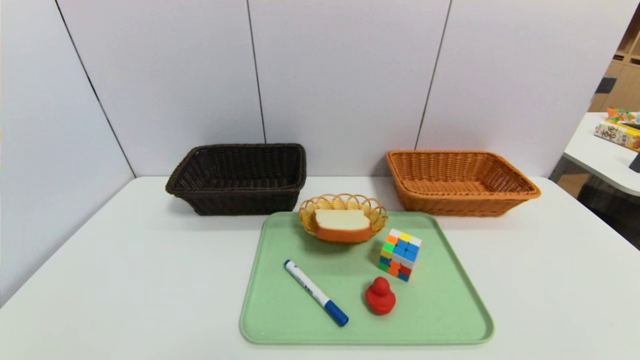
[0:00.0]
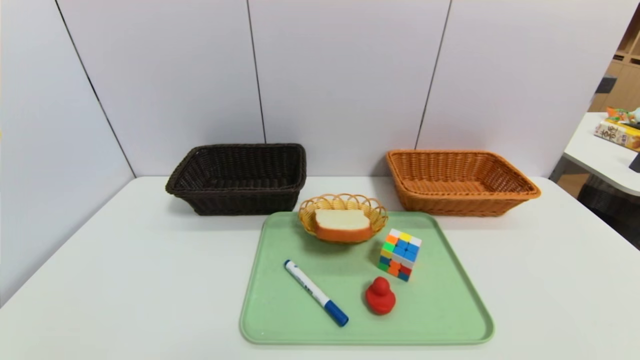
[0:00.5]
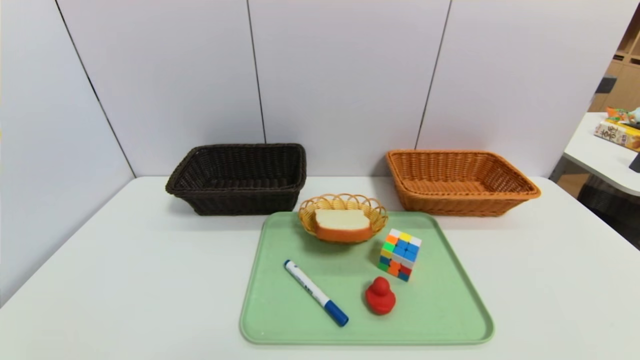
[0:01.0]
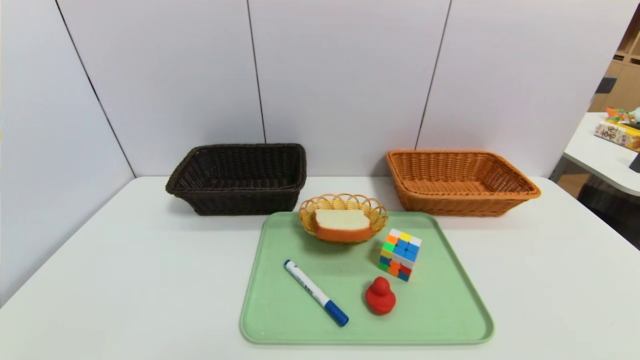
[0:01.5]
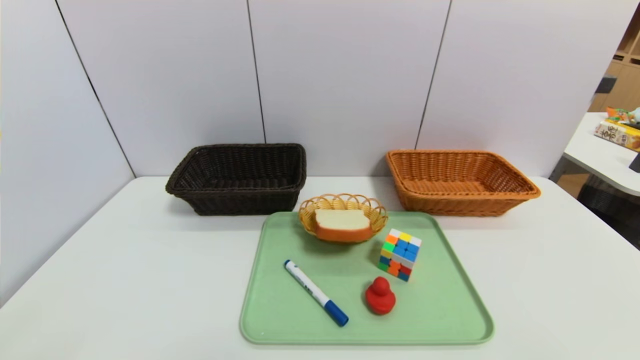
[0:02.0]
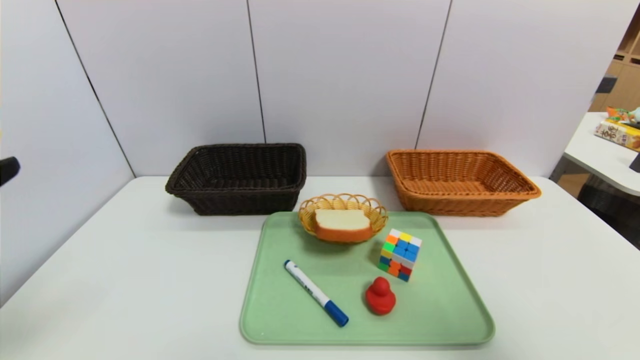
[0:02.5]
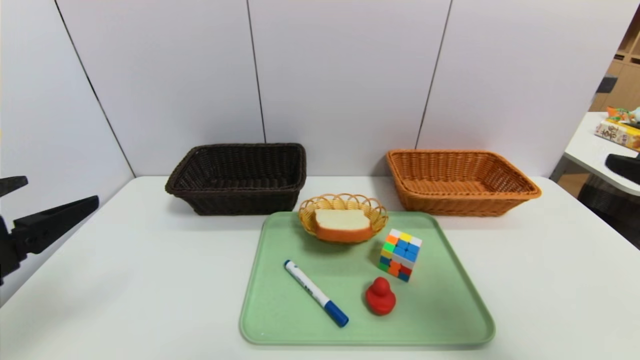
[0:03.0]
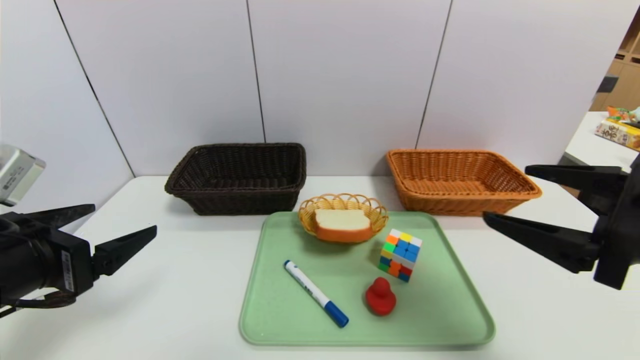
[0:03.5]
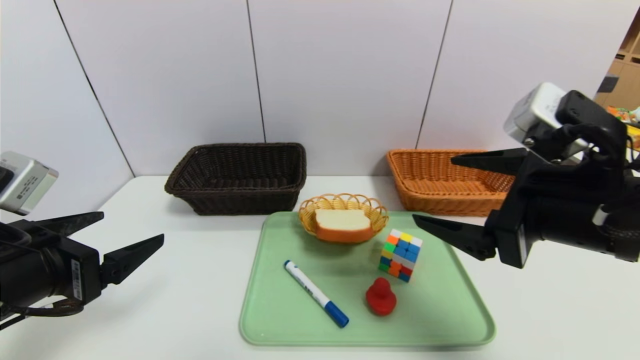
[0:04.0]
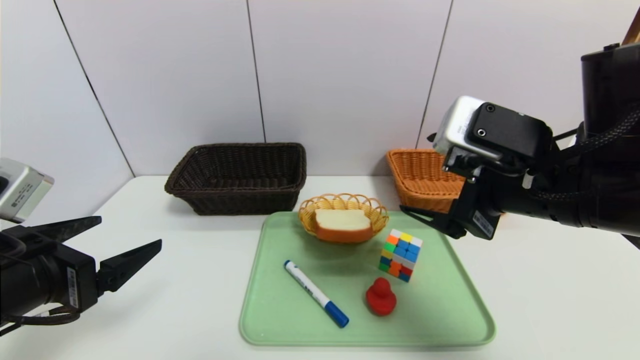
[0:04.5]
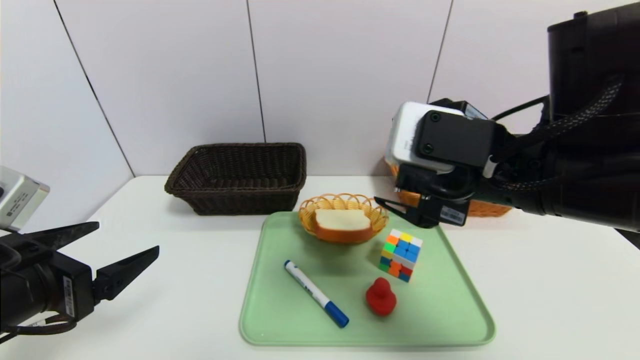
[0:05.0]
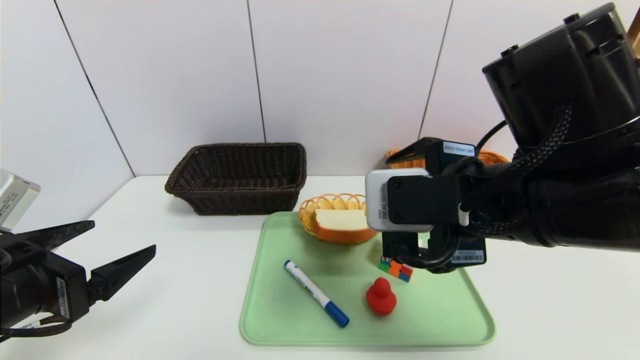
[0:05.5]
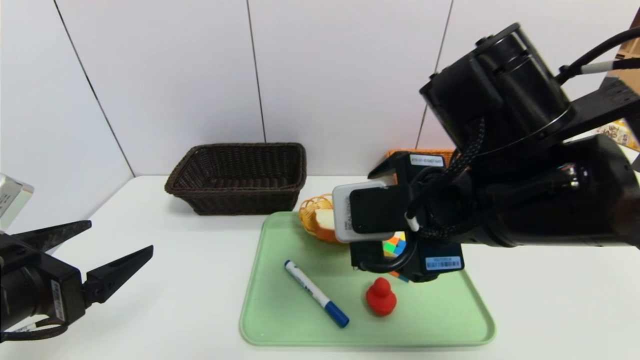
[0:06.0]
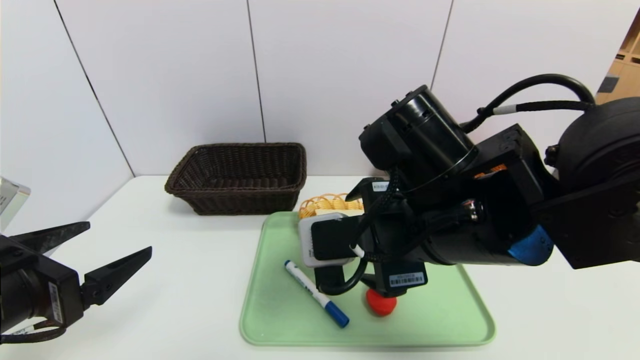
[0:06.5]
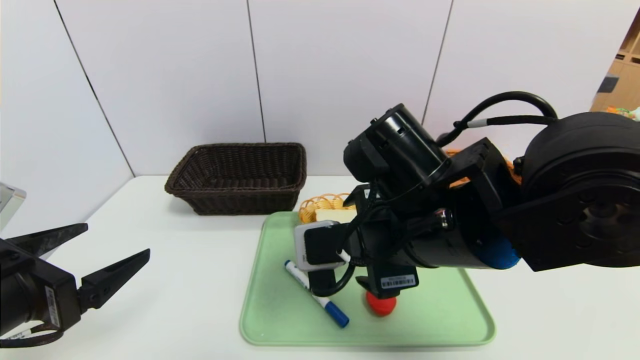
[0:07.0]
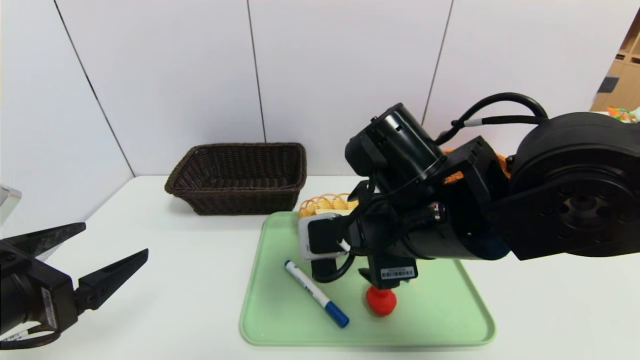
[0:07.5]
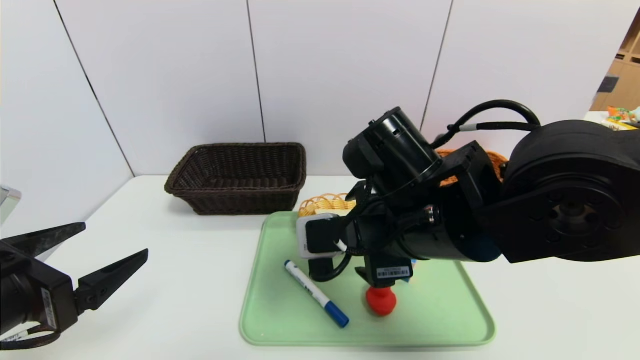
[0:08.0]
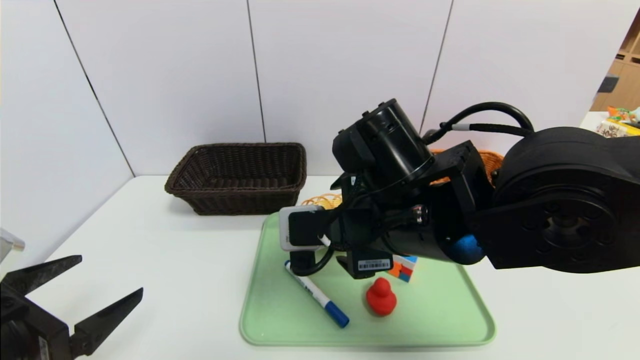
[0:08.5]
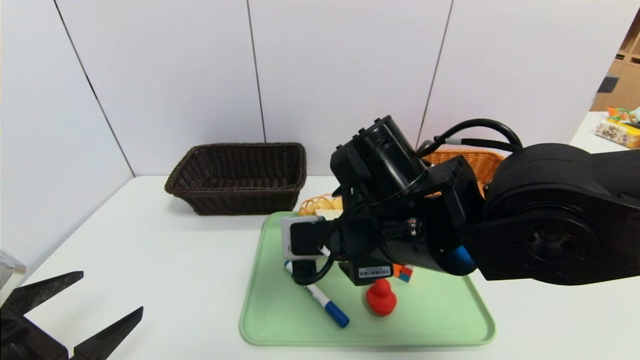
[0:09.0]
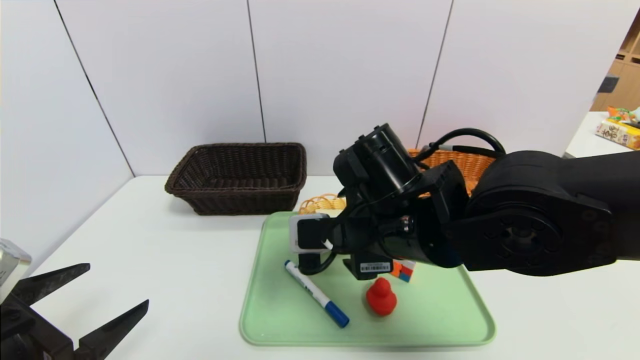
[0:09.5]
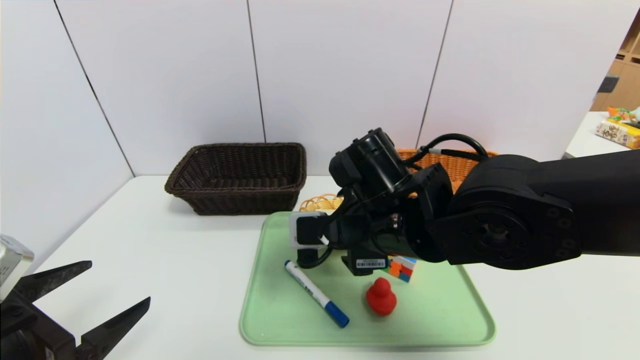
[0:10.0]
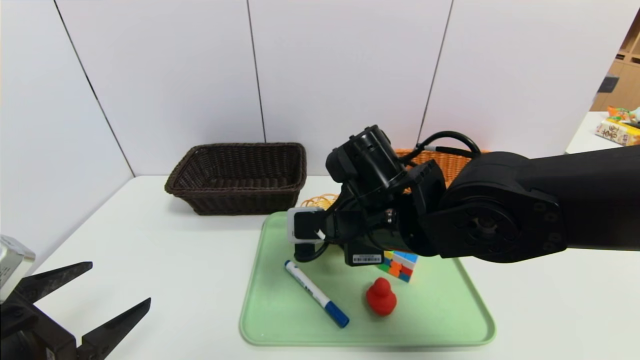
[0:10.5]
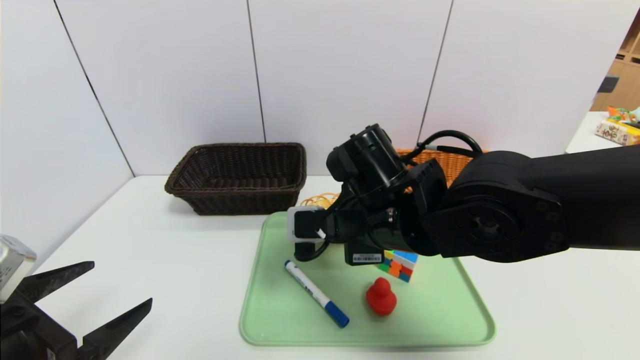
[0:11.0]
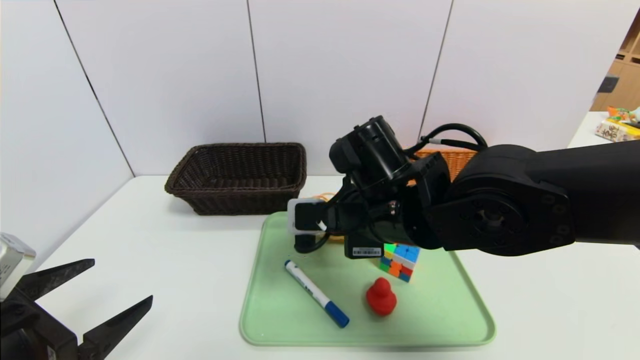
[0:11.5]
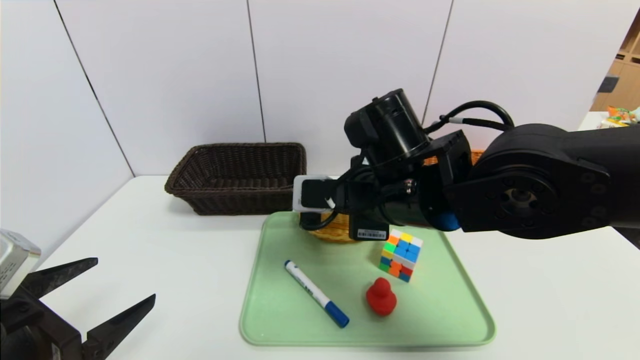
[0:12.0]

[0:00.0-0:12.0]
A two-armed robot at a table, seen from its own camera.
Task of the whole recording: place the food in the right basket with the right gripper, and place the non food items in the left basket with the left gripper.
0:02.0 to 0:04.0: The right gripper is displaced forward and to the left by roughly 25 cm. The left gripper is displaced forward by about 15 cm.
0:04.0 to 0:06.0: The right gripper moves to the left, about 10 cm.
0:06.0 to 0:08.0: The right gripper ends up about 5 cm from where it was.
0:08.0 to 0:10.0: The grippers stay close to where they were, moving slightly.
0:10.0 to 0:12.0: The right gripper closes.

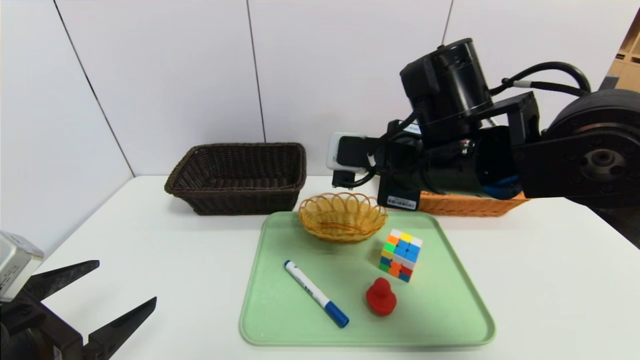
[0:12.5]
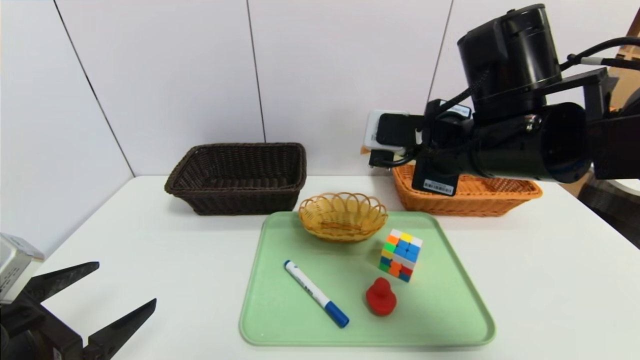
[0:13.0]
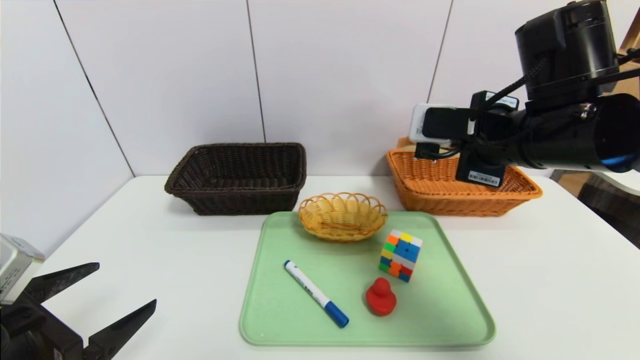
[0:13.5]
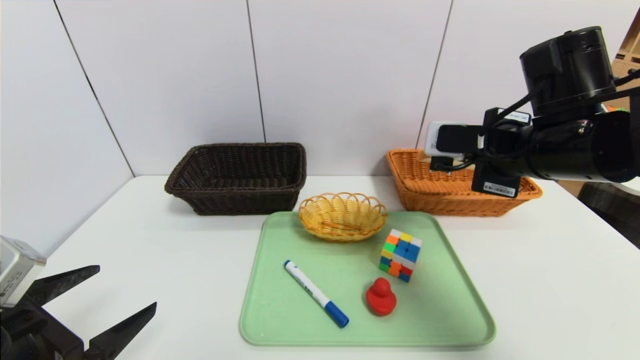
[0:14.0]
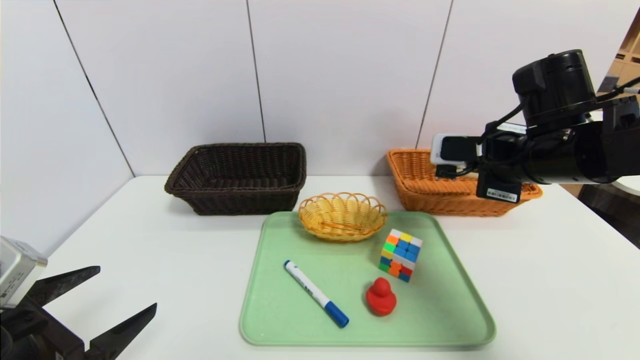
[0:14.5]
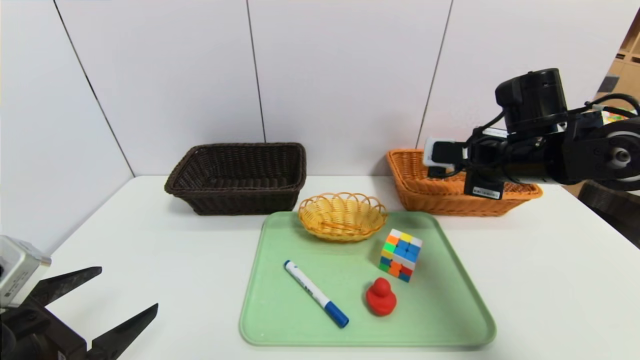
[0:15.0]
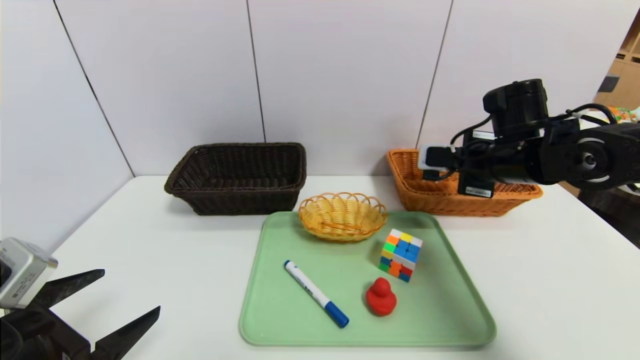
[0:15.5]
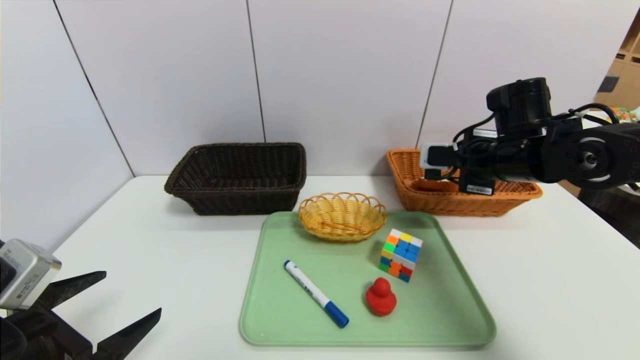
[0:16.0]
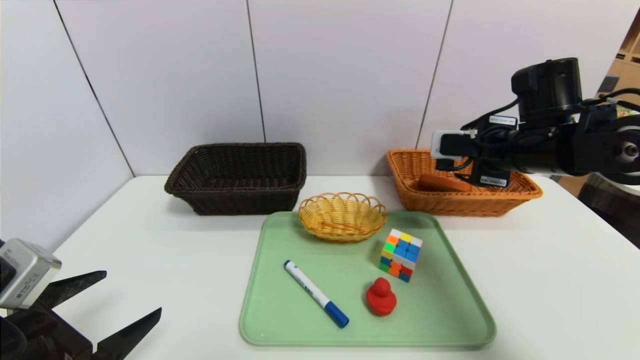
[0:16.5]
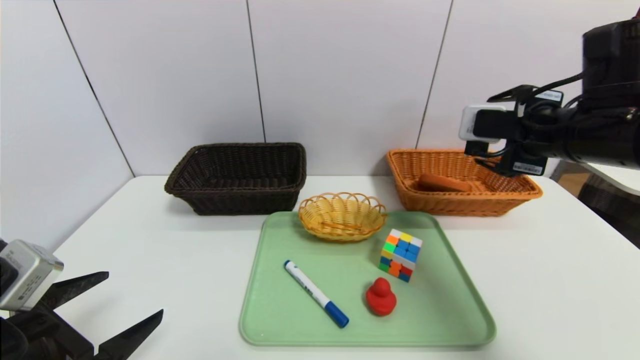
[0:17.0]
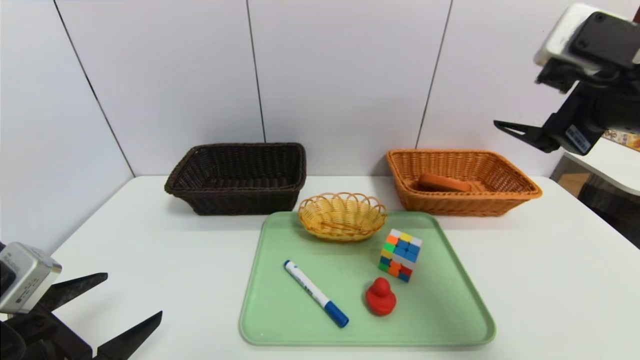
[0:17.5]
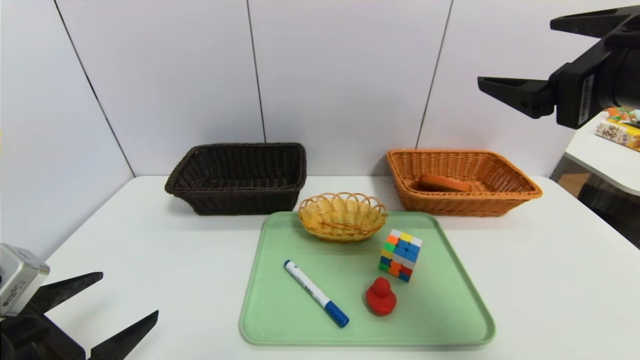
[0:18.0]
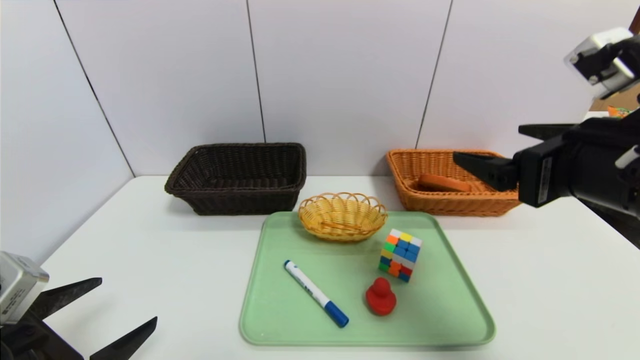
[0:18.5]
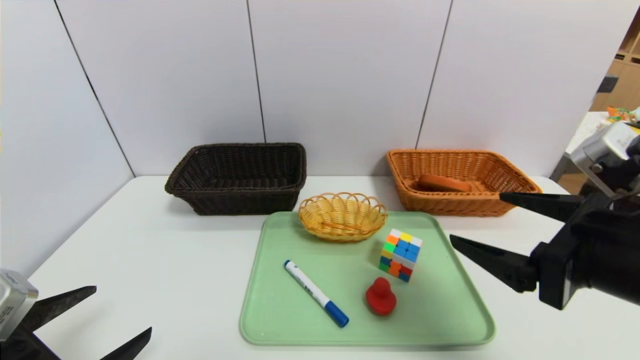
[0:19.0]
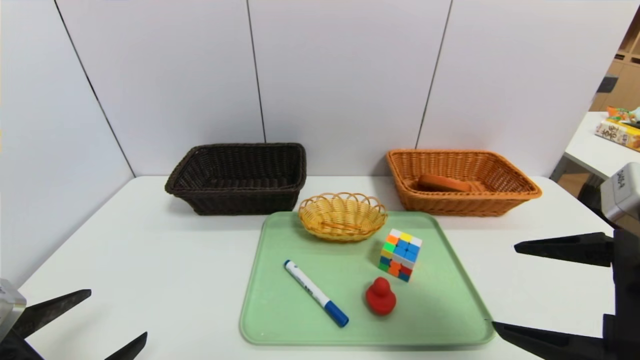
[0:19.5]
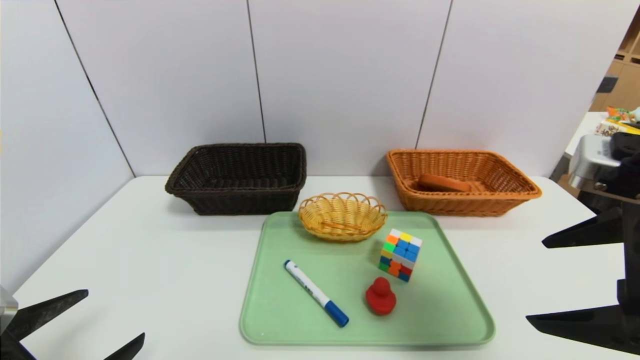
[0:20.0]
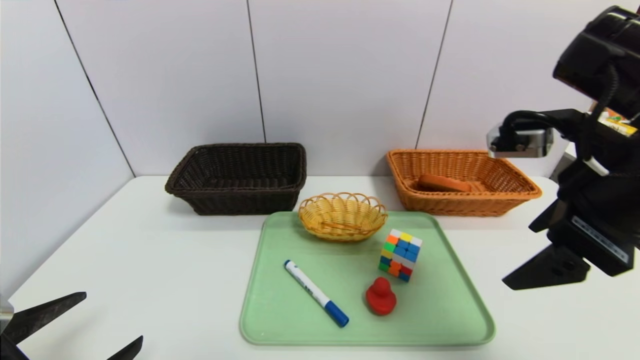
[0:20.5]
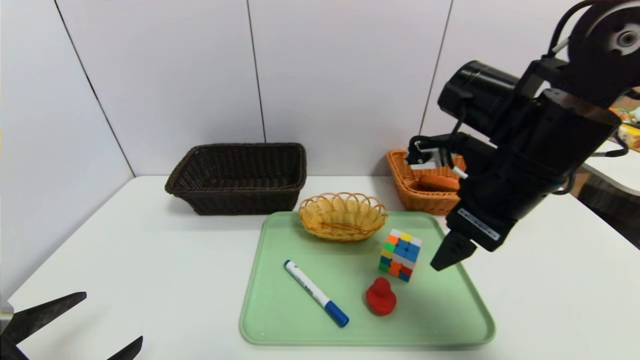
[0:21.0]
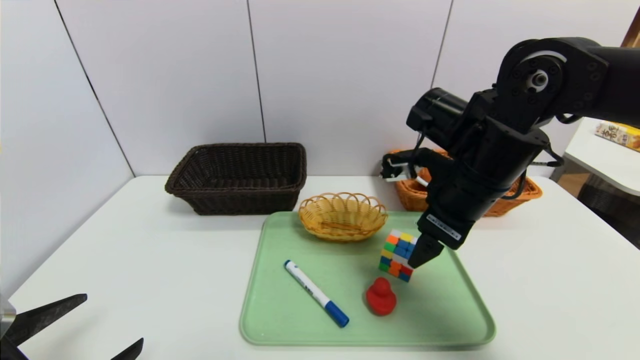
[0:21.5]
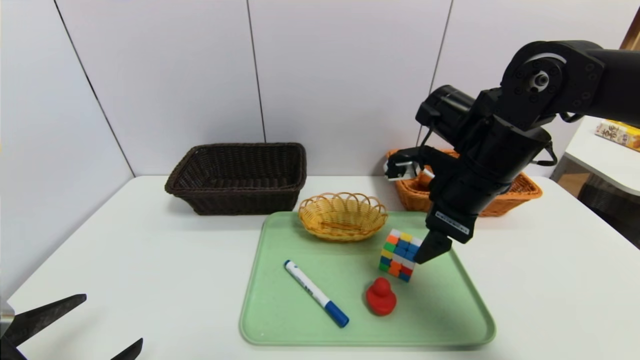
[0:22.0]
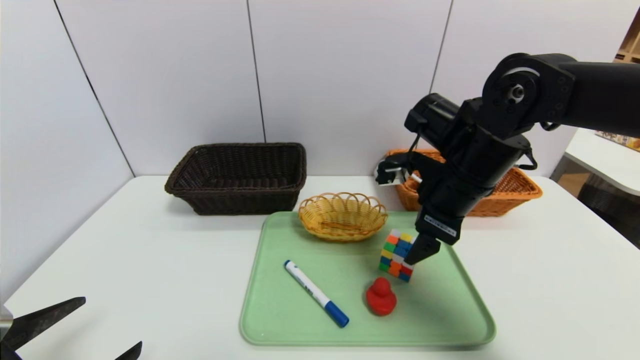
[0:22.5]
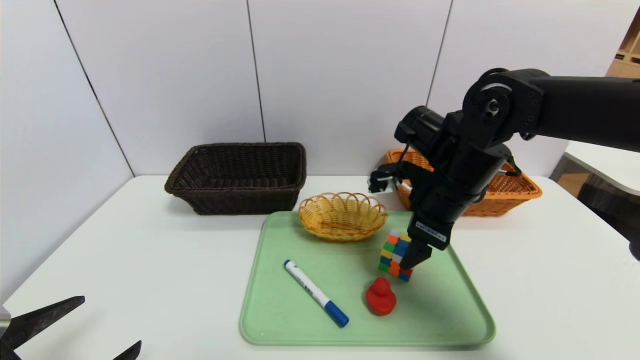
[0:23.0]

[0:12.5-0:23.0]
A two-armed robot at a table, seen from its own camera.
Task of the whole recording: place the food in the right basket with the right gripper, and place the non food items in the left basket with the left gripper.
Step, 0:12.5 to 0:15.5: Grasp the bread slice and put it in the right basket.
0:12.5 to 0:14.5: The right gripper is displaced to the right by some 10 cm.
0:14.5 to 0:16.5: The right gripper opens up.
0:16.5 to 0:19.0: The right gripper shifts some 20 cm backward.
0:19.0 to 0:21.0: The right gripper goes roughly 15 cm forward and to the left.
0:21.0 to 0:23.0: The right gripper is displaced forward and downward by some 10 cm.
